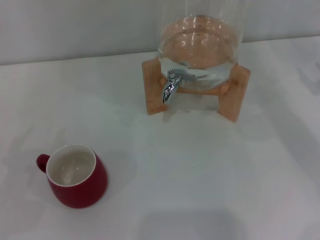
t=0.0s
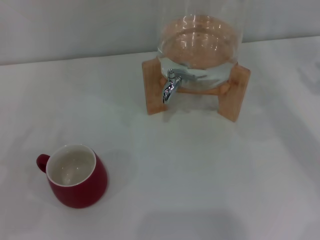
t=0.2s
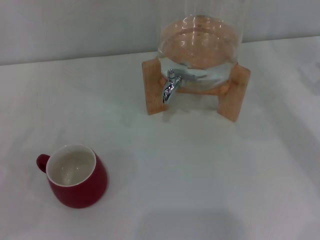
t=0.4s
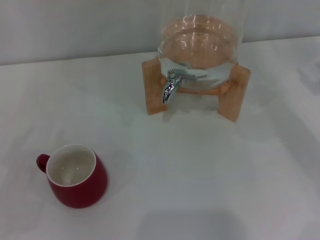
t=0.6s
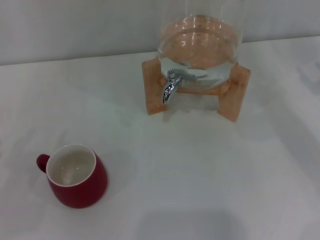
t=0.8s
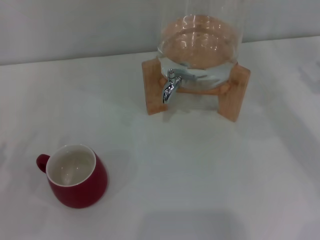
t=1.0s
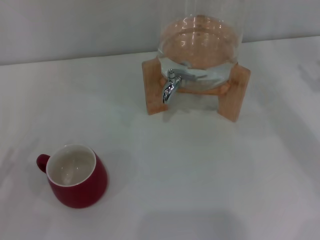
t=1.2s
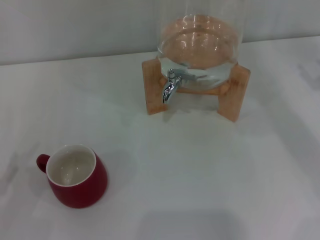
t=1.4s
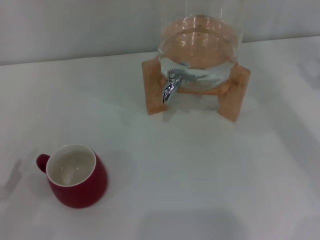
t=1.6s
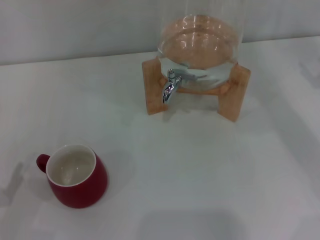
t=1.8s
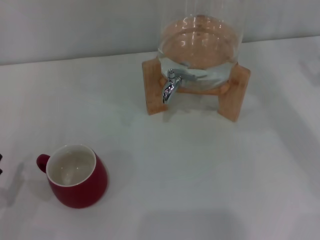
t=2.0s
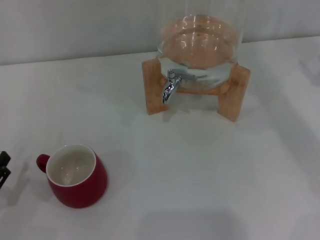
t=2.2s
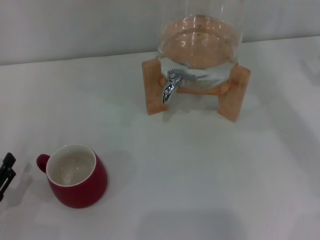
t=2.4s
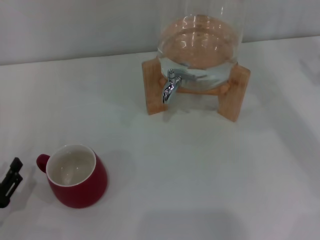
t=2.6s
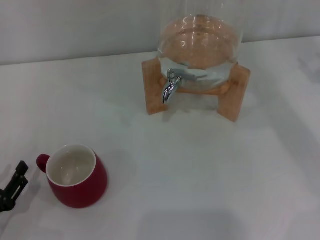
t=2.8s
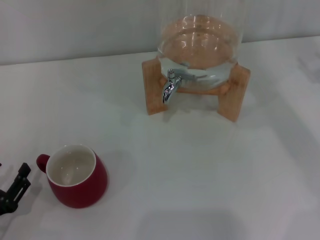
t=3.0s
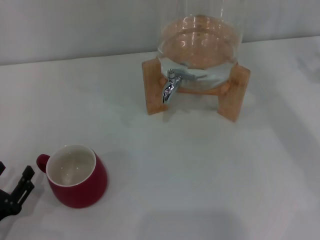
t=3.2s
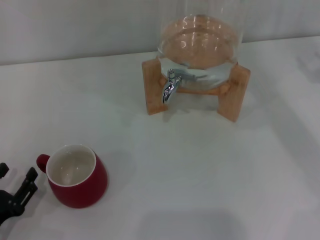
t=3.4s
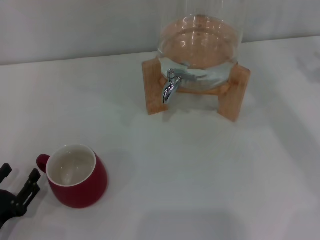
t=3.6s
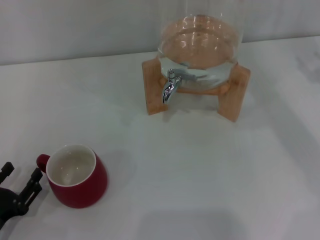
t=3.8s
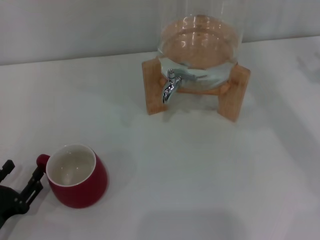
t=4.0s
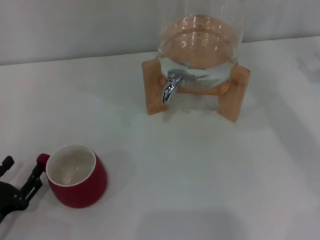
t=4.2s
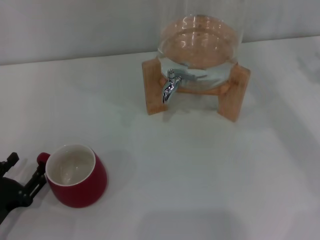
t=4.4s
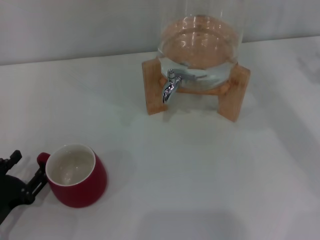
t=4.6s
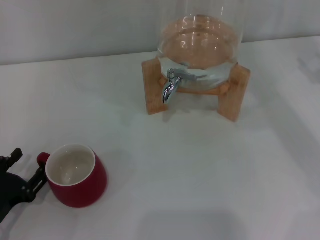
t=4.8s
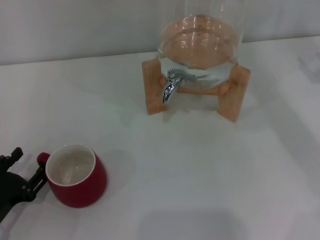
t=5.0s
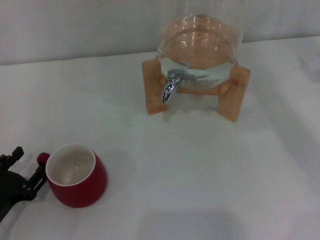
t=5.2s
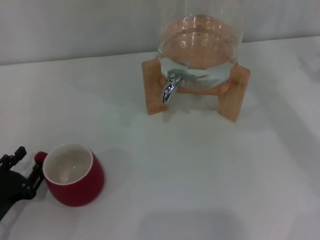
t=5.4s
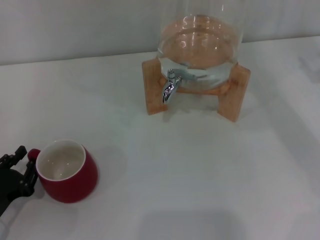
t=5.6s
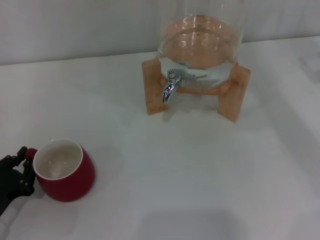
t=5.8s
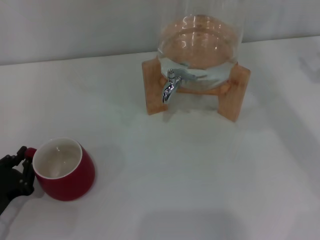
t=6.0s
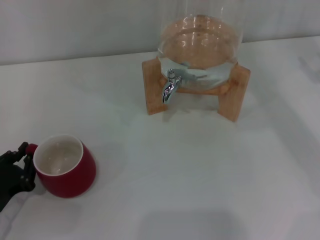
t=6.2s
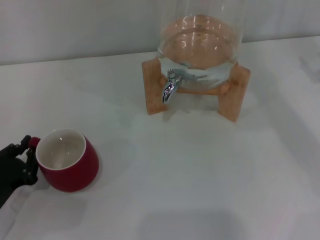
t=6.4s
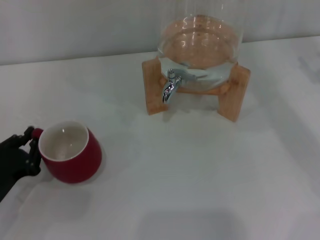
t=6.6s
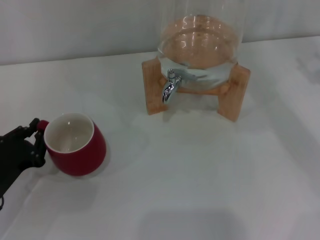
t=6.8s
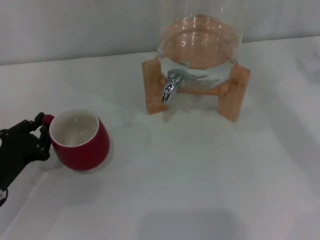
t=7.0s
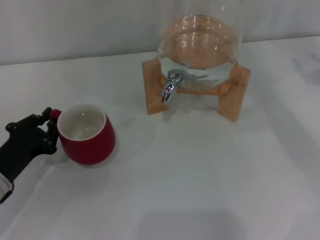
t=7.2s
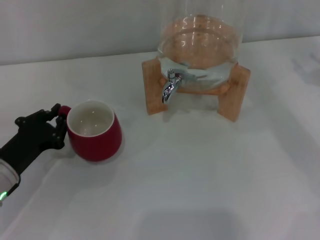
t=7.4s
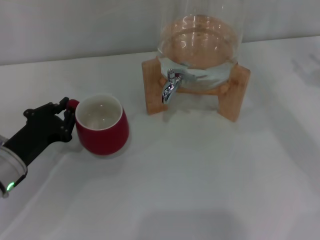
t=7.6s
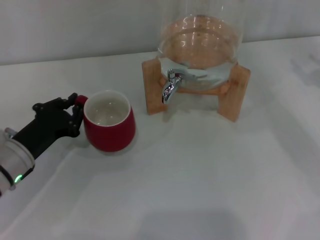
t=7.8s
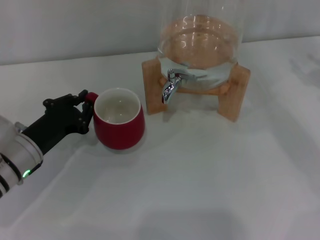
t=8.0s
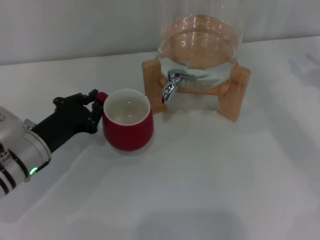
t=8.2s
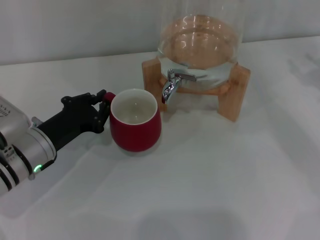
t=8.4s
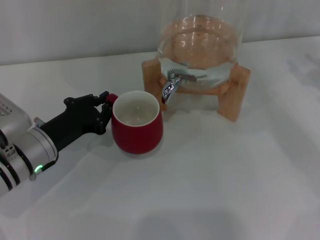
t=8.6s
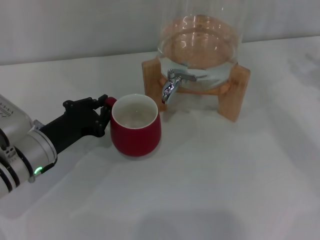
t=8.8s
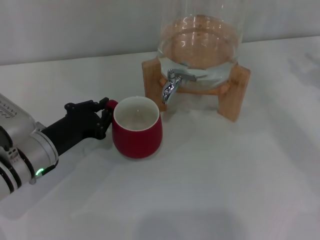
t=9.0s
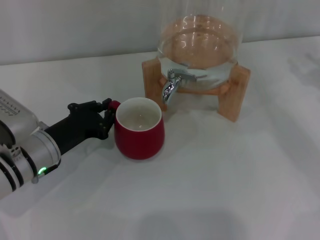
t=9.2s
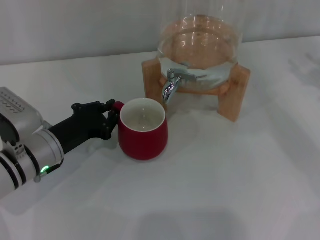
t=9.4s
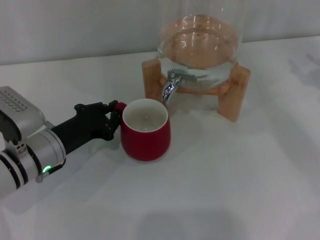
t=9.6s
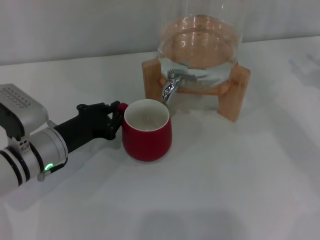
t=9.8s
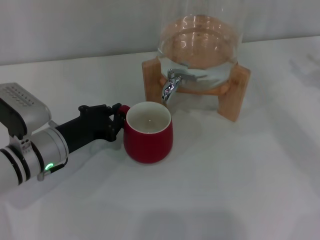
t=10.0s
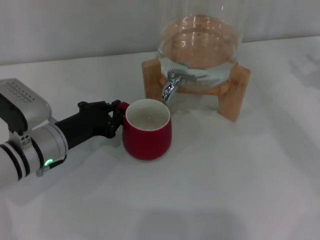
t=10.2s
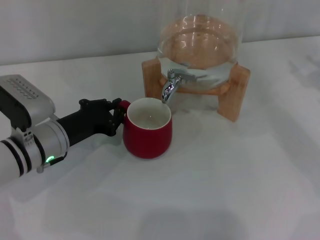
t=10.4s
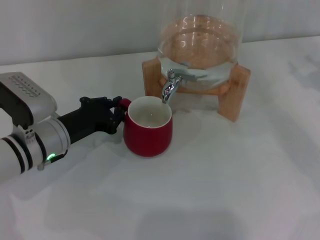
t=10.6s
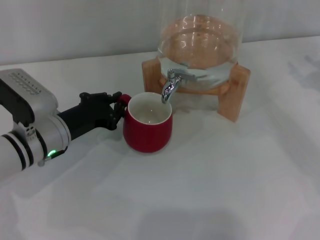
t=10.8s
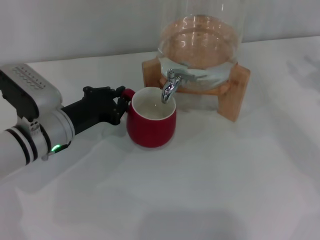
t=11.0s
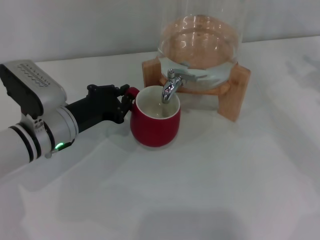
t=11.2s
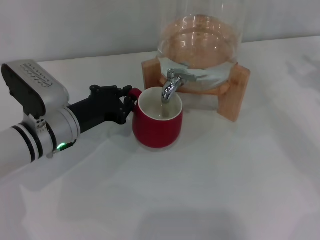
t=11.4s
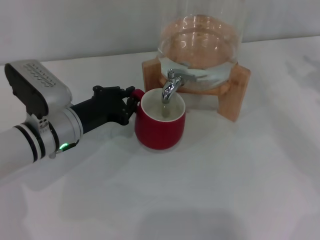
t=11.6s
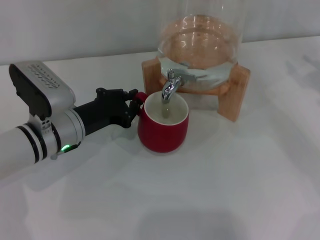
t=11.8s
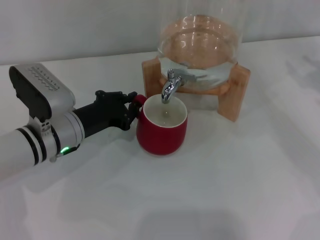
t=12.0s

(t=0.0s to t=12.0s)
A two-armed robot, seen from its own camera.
Task of the whole recording: the left gripper pick up the red cup and place it horizontally under the faucet, the right gripper turn on the faucet to fill the cup, and then turn off the faucet.
t=1.6s - t=4.4s: The grippers make only small movements.
t=4.4s - t=6.0s: The left gripper closes its fingers.
t=6.0s - t=7.6s: The left gripper moves forward and to the right, some 10 cm.
t=7.6s - t=9.0s: The grippers move only a little.
t=9.0s - t=12.0s: There are only small adjustments of the grippers.

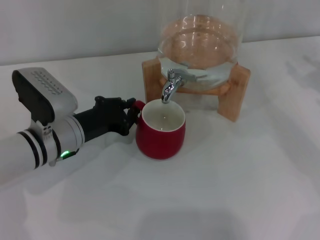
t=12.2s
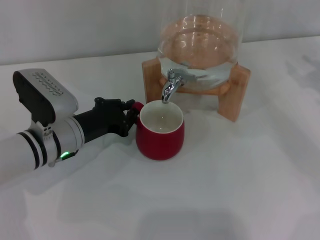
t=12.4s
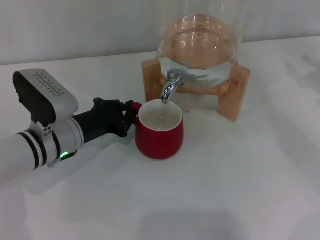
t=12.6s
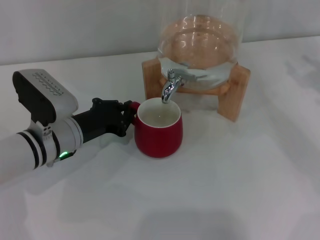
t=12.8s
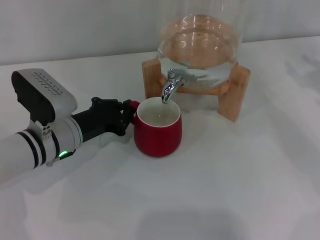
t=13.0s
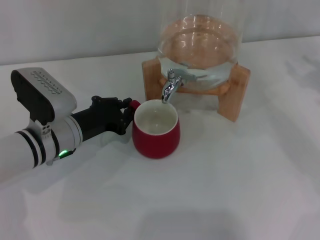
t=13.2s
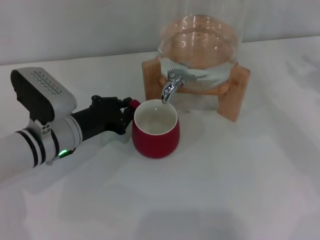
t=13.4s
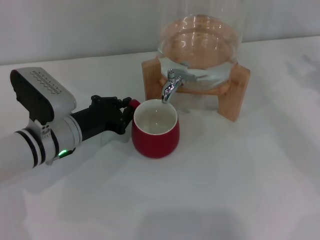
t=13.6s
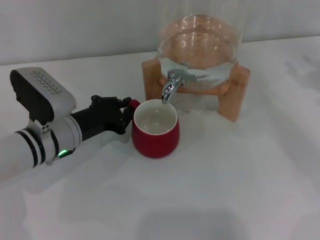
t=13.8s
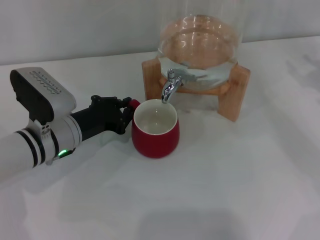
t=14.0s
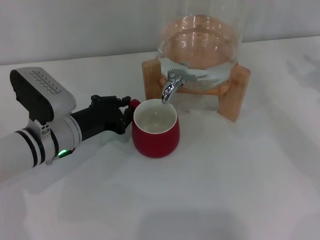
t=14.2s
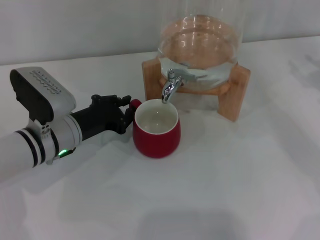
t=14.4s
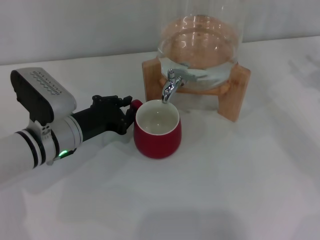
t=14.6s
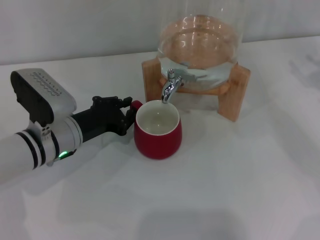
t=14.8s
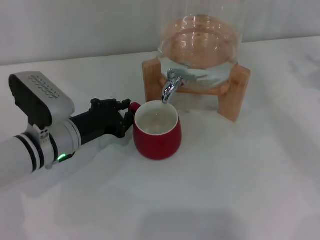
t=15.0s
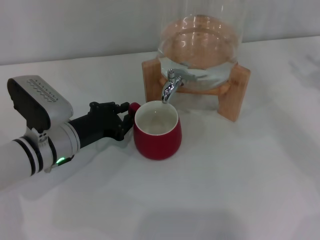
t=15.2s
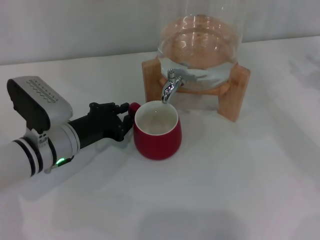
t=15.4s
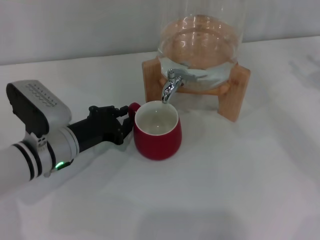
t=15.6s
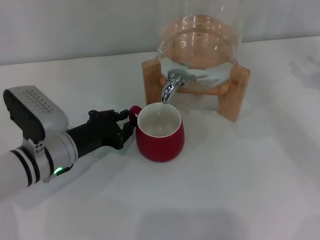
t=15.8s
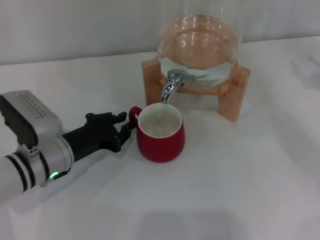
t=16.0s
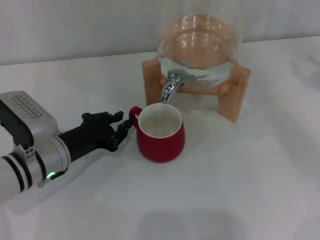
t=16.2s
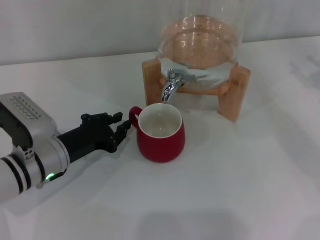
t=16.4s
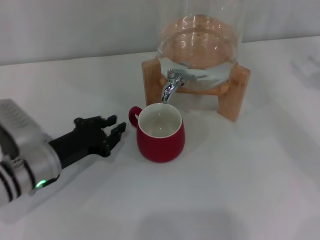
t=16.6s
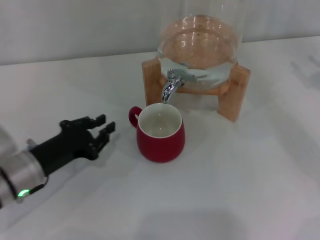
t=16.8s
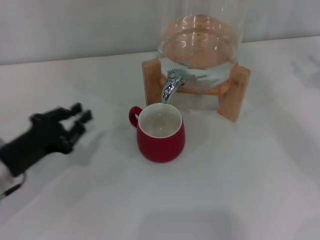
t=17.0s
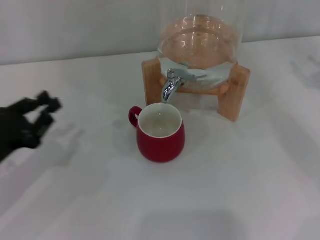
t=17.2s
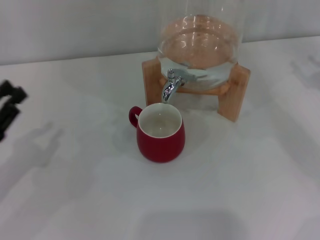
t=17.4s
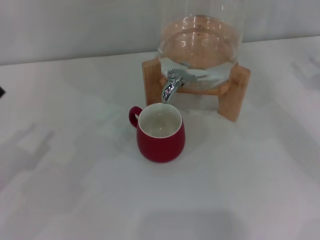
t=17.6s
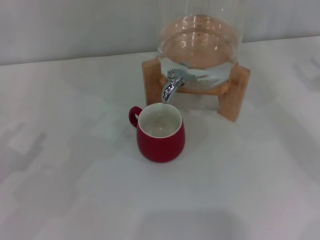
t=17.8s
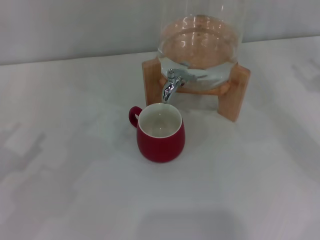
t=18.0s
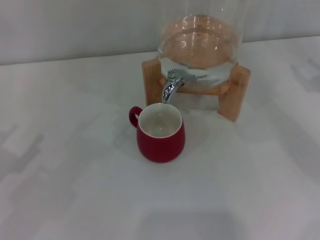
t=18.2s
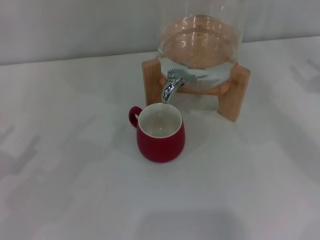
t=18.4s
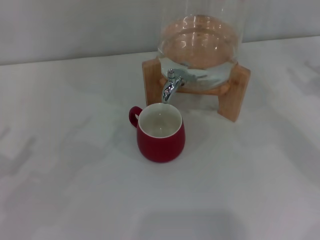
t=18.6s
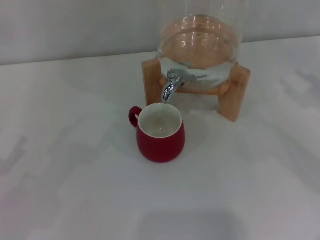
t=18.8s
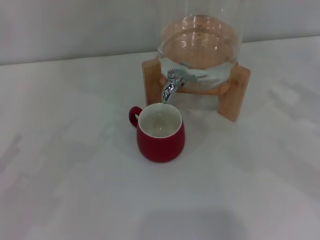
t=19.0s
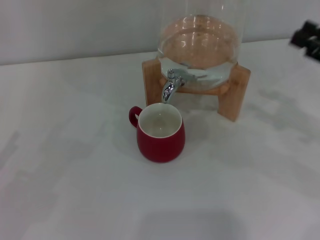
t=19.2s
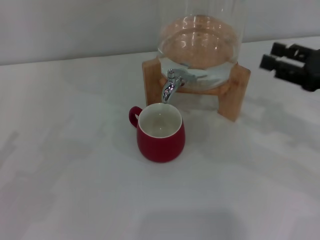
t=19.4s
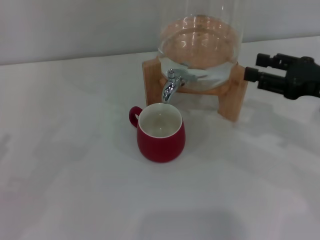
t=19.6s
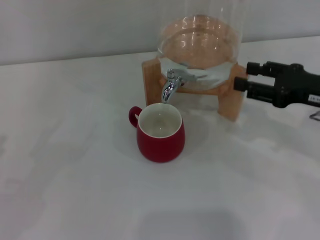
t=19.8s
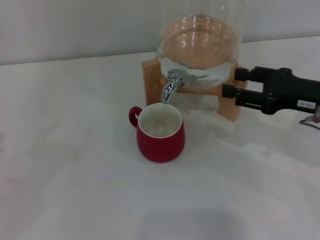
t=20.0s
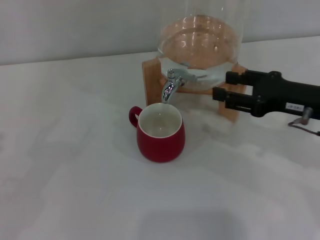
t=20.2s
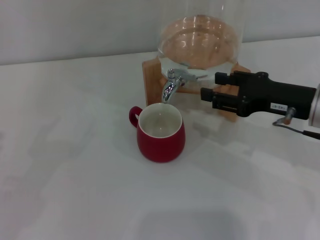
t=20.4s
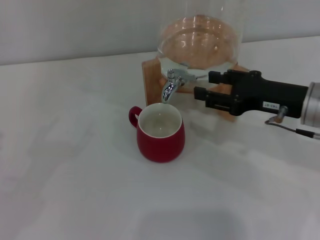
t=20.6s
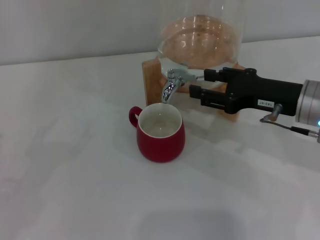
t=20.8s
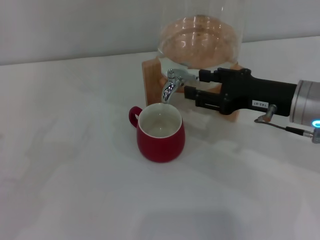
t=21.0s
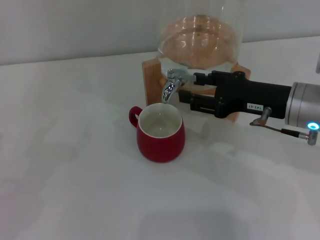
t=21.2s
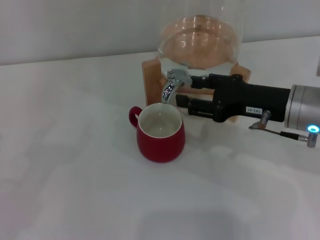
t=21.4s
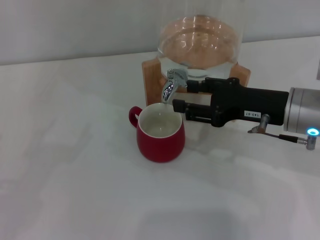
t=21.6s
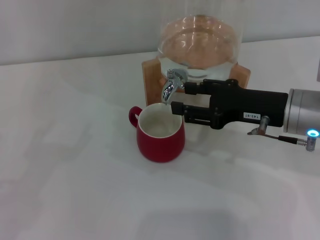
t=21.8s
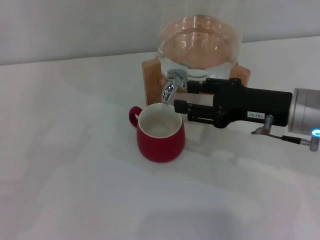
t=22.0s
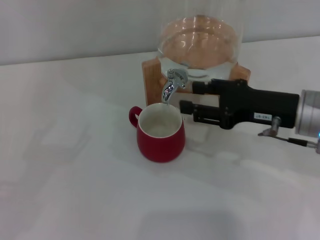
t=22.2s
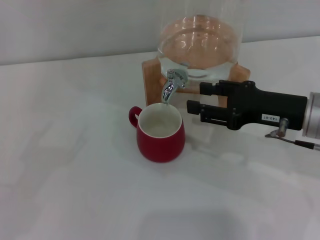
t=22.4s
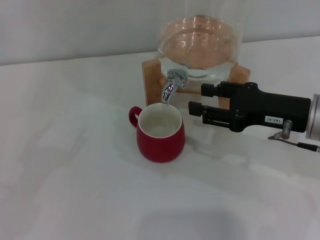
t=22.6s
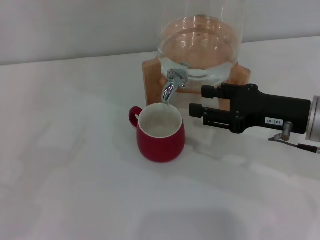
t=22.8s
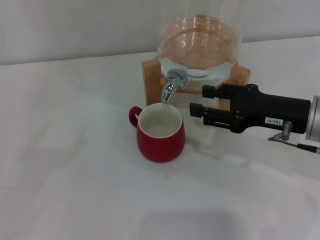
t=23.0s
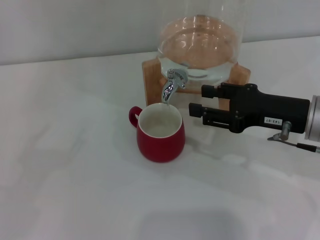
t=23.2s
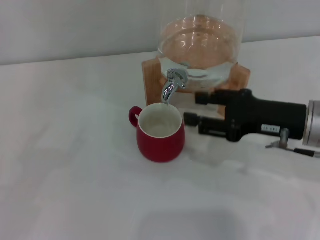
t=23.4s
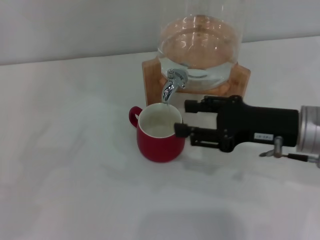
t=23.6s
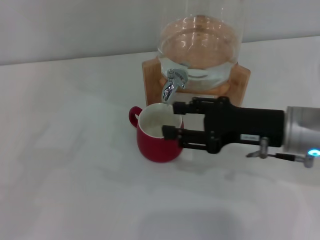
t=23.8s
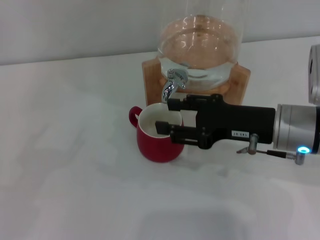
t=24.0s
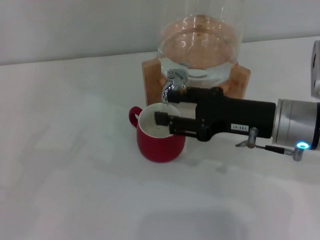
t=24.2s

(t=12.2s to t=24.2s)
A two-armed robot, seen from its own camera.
Task of the whole recording: the left gripper pick up the red cup and place it horizontally under the faucet, the right gripper turn on the faucet to fill the cup, and then turn off the faucet.
Step, t=12.2s - t=16.8s: Move the cup beneath the water dispenser nozzle with the left gripper.
Step, t=17.0s - t=22.4s: Open the dispenser valve and fill the cup with water with the right gripper.
t=12.2s - t=15.2s: Neither gripper changes place.
t=15.2s - t=16.6s: The grippers stay close to where they were, moving slightly.
t=16.6s - t=18.2s: The left gripper heads to the left, backward and upward, covering approximately 20 cm, and opens up.
t=18.2s - t=19.8s: The right gripper shifts about 10 cm to the left.
t=19.8s - t=21.2s: The right gripper travels to the left by some 10 cm.
t=21.2s - t=24.2s: The grippers make only small movements.
